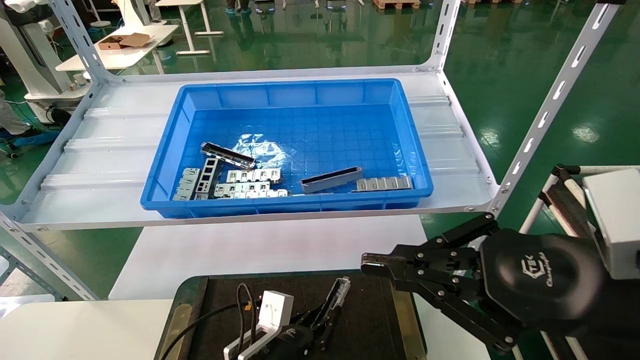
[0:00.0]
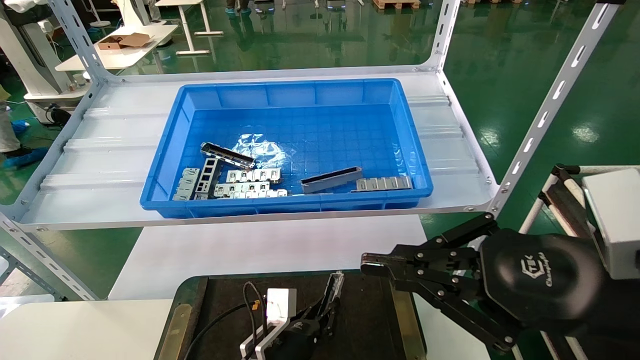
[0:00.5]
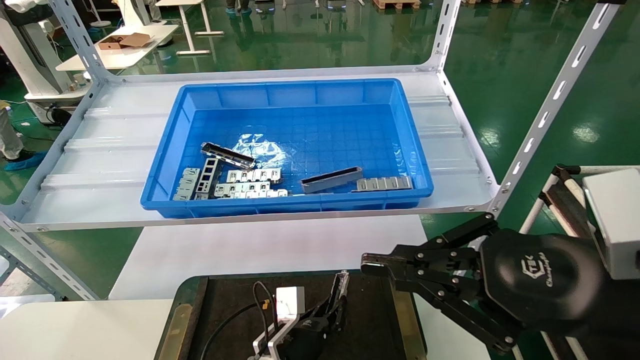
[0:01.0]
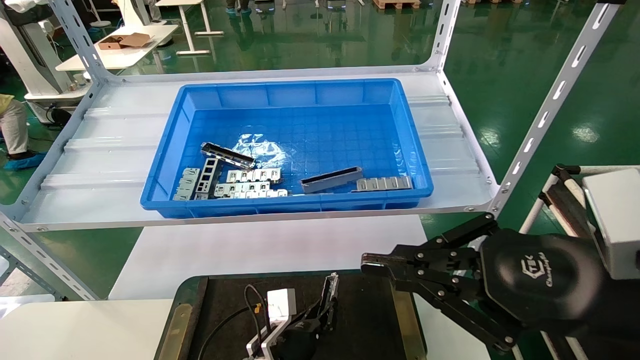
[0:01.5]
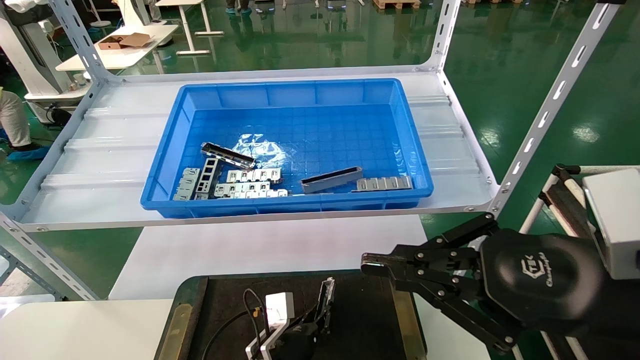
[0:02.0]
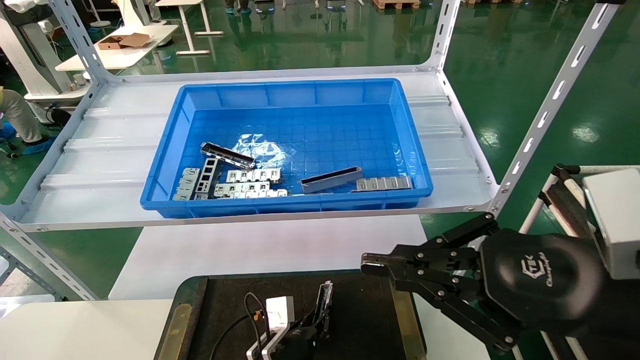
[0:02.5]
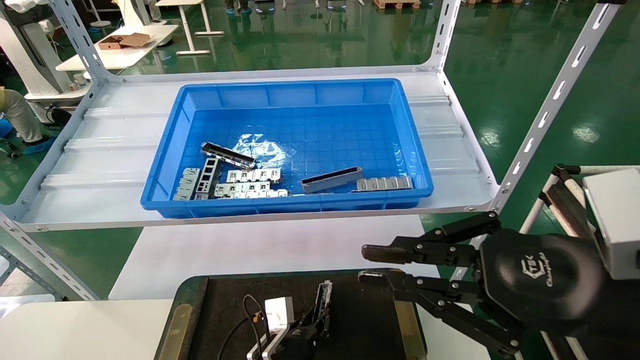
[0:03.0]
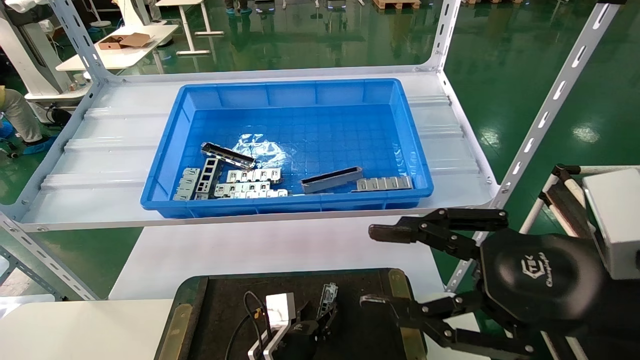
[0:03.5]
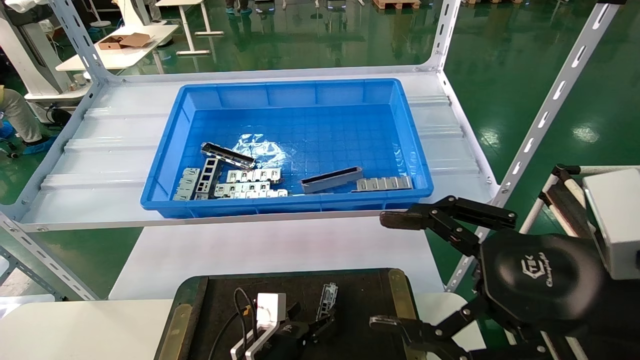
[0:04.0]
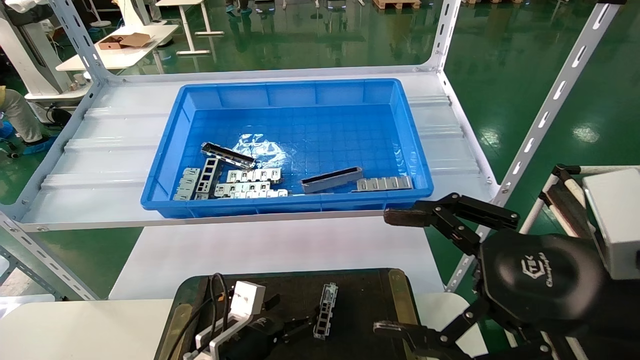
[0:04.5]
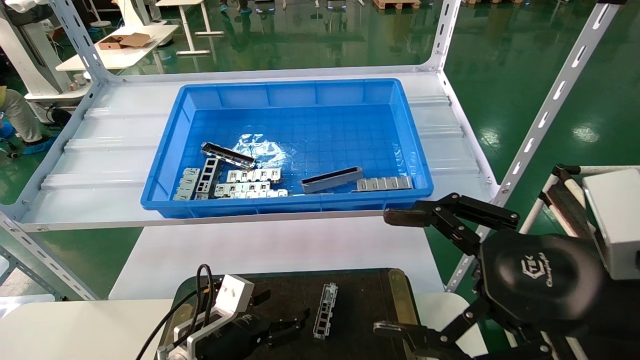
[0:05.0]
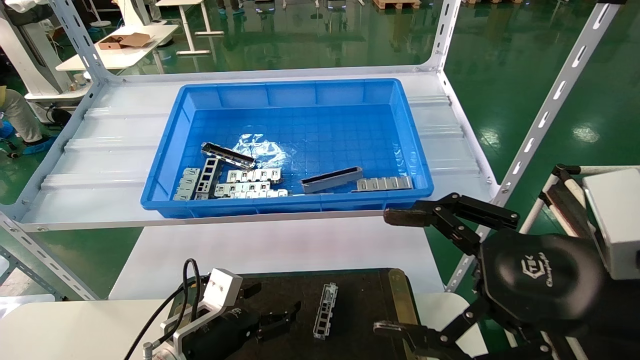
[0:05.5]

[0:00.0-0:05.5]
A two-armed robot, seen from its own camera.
Task of the whole recording: Grasp the part with one hand and place it on the black container.
Step, 0:00.0 to 0:03.0: Place the front USB bracket into the box.
0:00.0 to 0:02.0: The left gripper moves approximately 5 cm.
0:02.0 to 0:03.5: The right gripper opens its fingers, while the left gripper opens its fingers.
0:03.5 to 0:05.5: The right gripper opens up; the left gripper is displaced to the left and upward by approximately 15 cm, and opens up.
